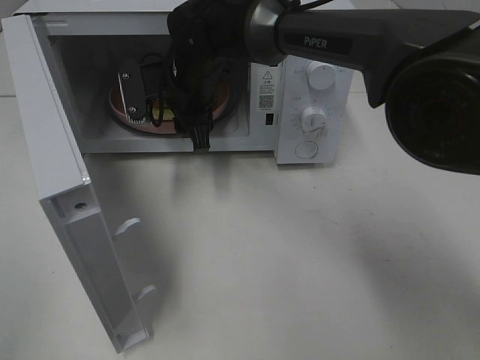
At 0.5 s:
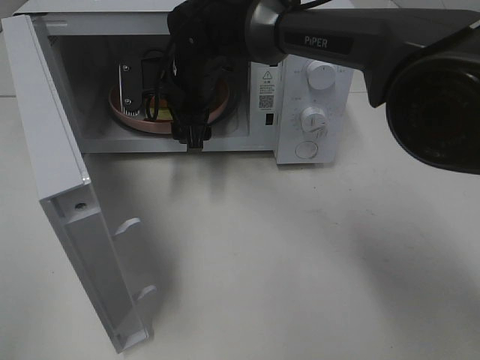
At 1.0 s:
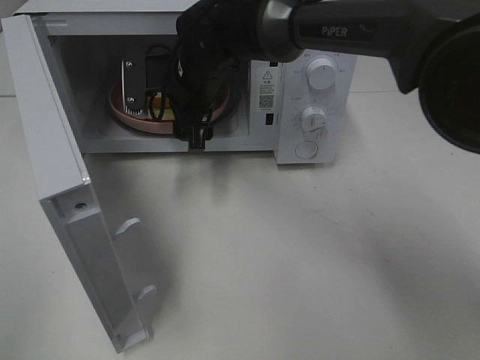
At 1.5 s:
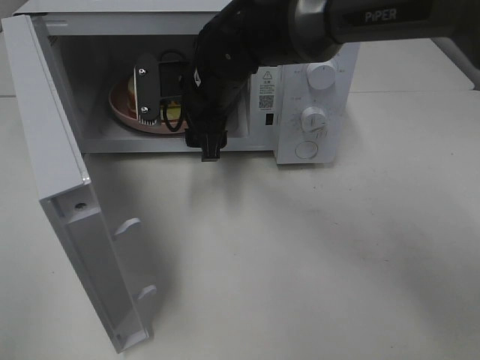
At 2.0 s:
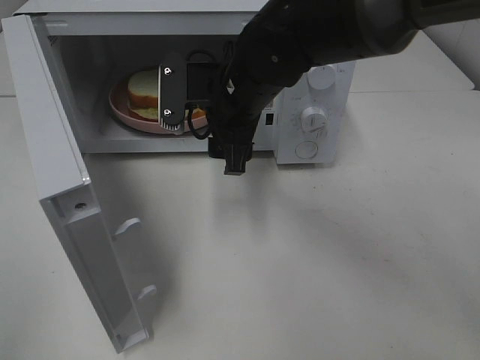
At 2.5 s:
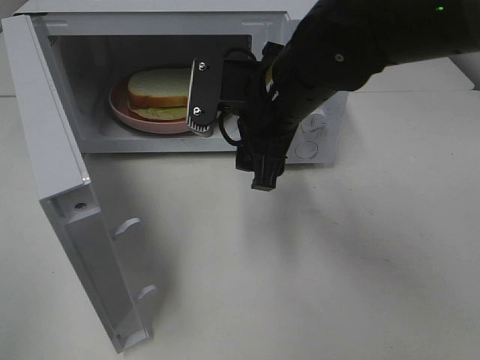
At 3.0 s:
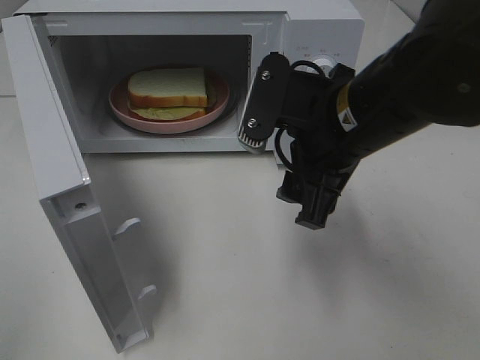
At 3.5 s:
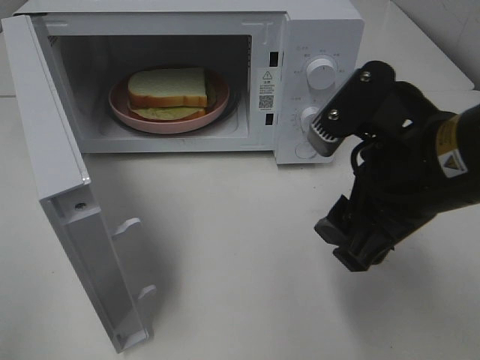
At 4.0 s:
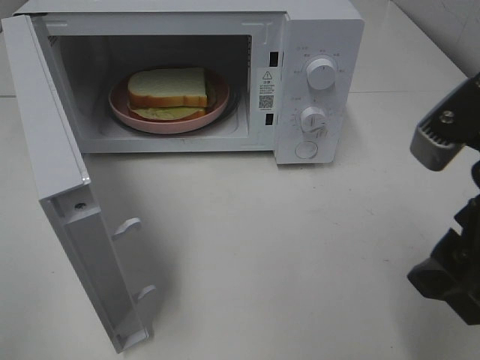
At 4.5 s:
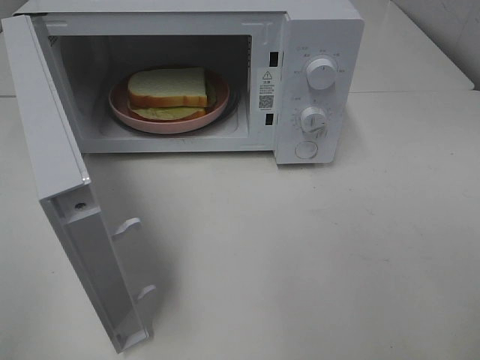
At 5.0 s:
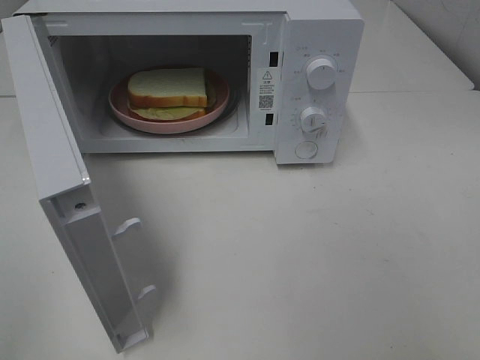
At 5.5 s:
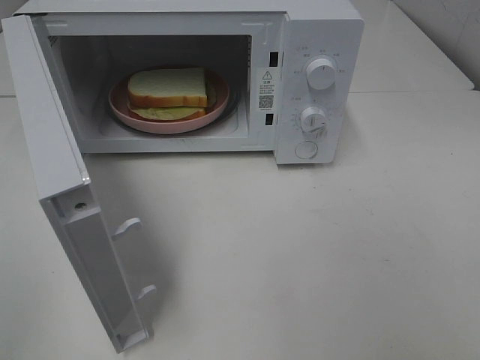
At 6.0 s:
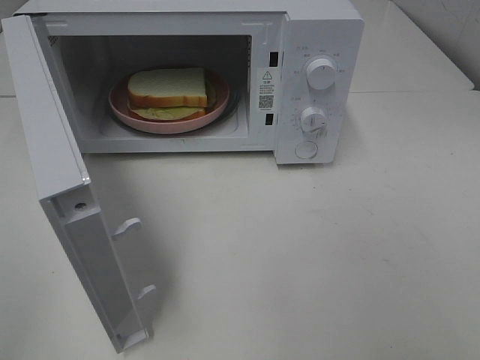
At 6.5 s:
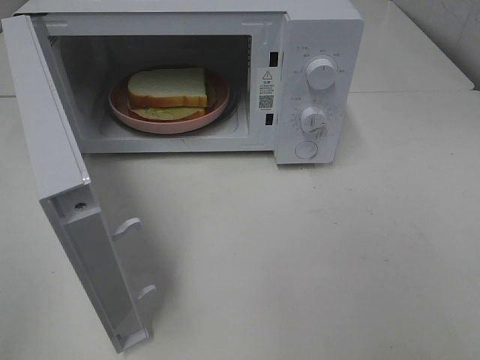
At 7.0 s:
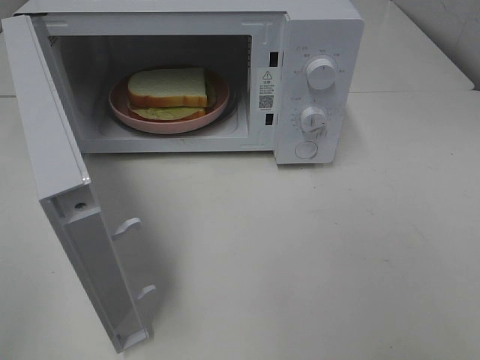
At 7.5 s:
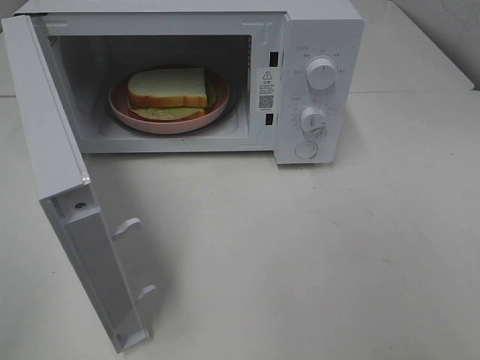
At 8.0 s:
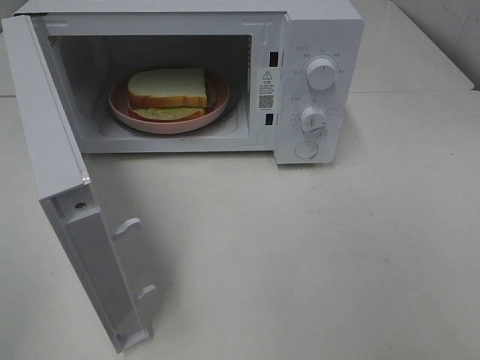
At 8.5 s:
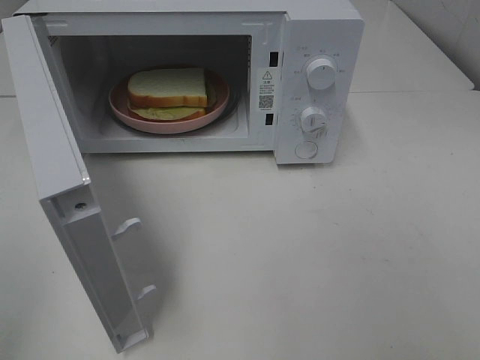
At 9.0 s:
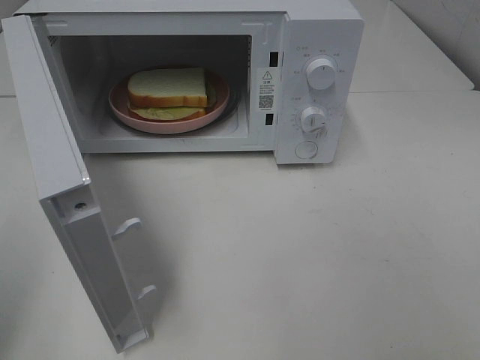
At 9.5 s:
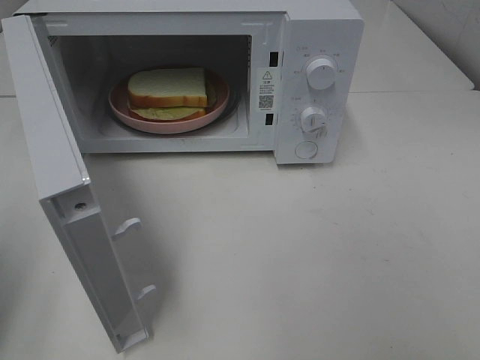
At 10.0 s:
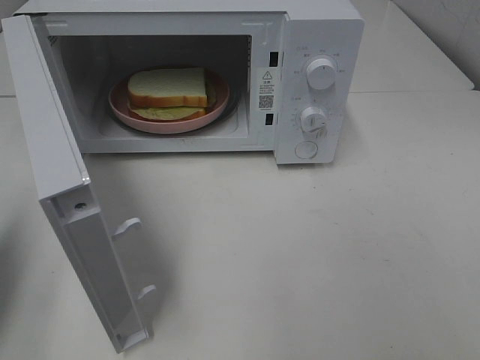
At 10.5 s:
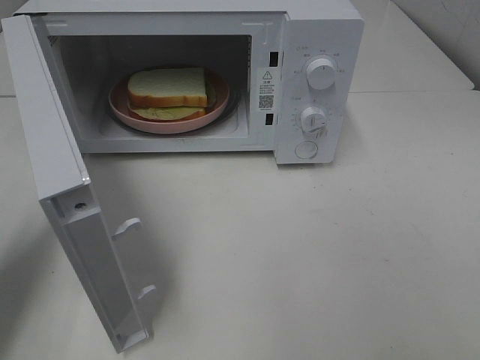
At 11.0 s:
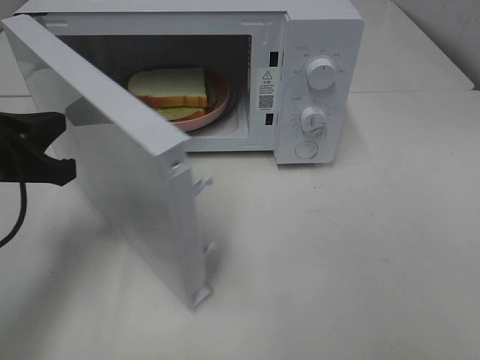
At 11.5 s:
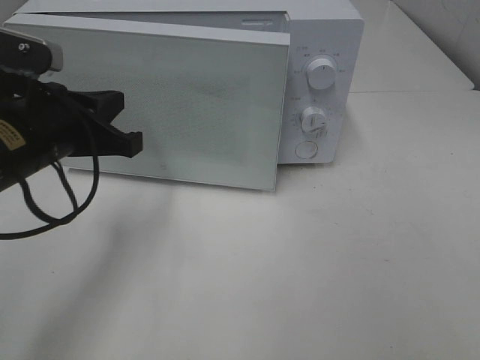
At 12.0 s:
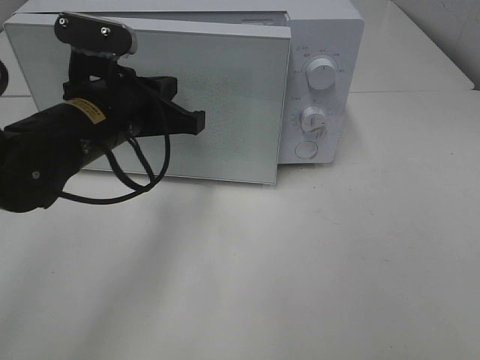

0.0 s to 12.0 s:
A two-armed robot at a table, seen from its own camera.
Task of the whole recording: Heat Sandwich.
0.0 to 2.0 s: The right gripper goes approximately 10 cm backward and to the right.
2.0 to 4.0 s: The right gripper is displaced backward and to the right by approximately 30 cm.
4.0 to 6.0 s: The right gripper travels backward and to the right by approximately 15 cm.
6.0 to 8.0 s: Both grippers stay put.
8.0 to 10.0 s: The left gripper goes approximately 20 cm forward, and closes.
10.0 to 12.0 s: The left gripper moves to the right and forward, roughly 25 cm.

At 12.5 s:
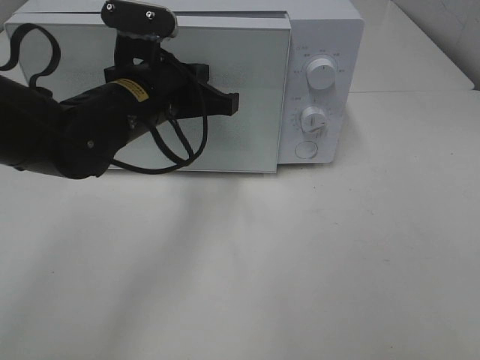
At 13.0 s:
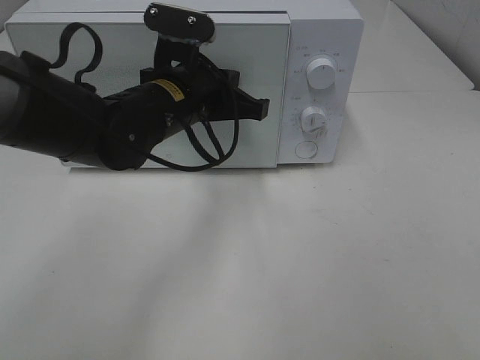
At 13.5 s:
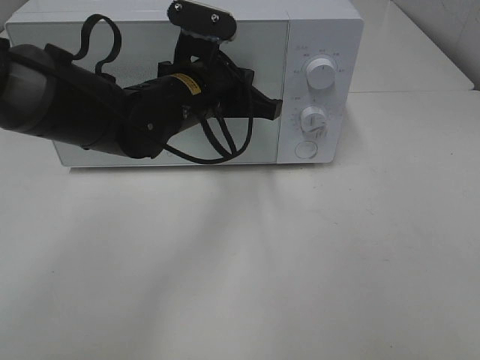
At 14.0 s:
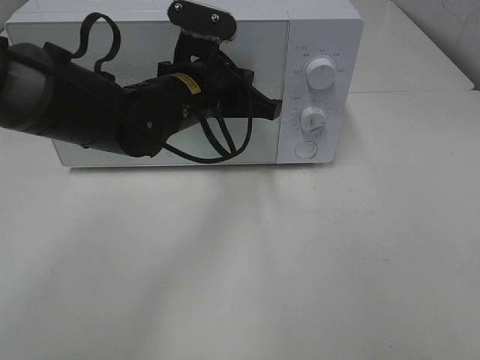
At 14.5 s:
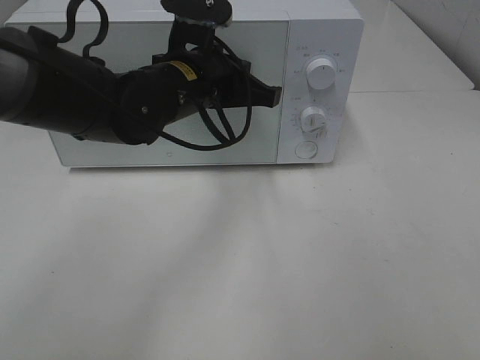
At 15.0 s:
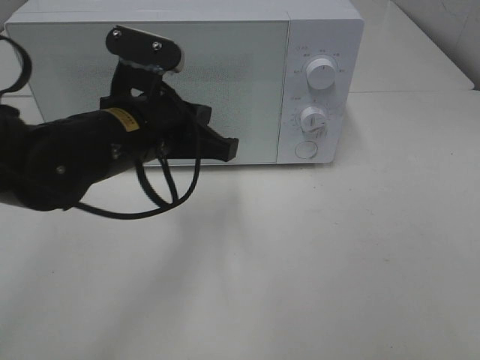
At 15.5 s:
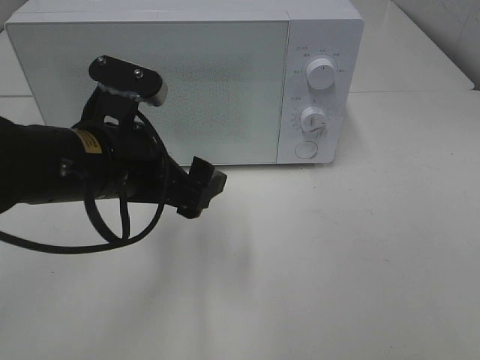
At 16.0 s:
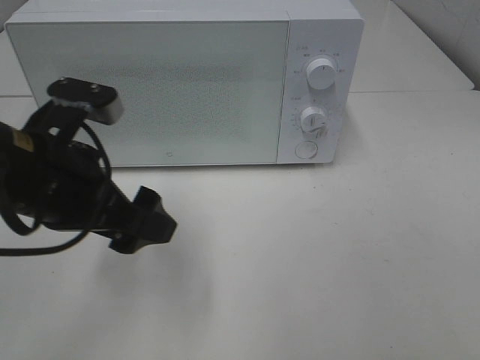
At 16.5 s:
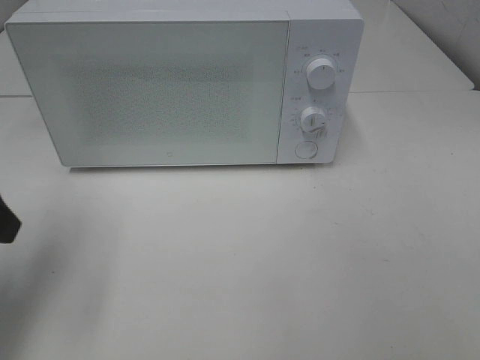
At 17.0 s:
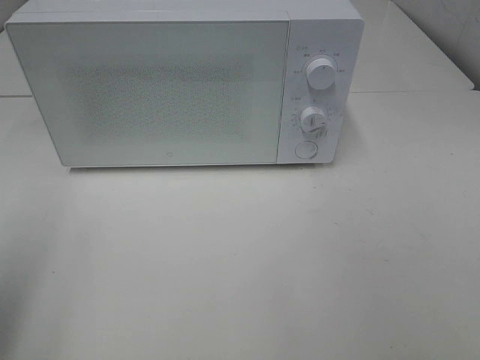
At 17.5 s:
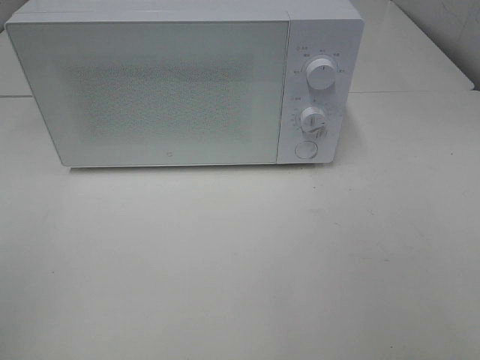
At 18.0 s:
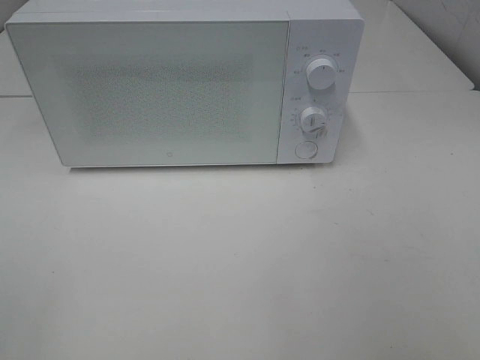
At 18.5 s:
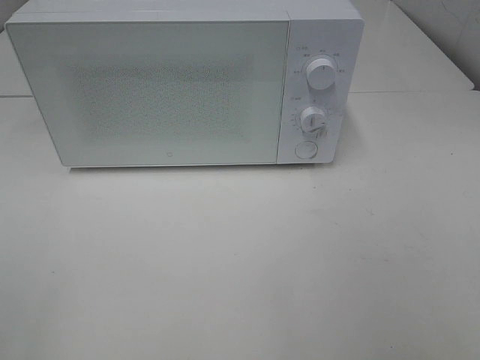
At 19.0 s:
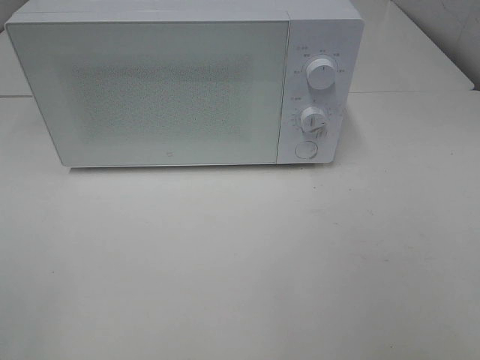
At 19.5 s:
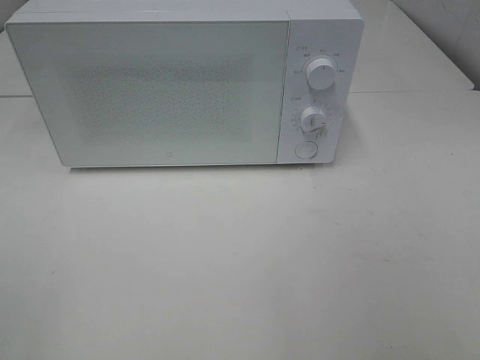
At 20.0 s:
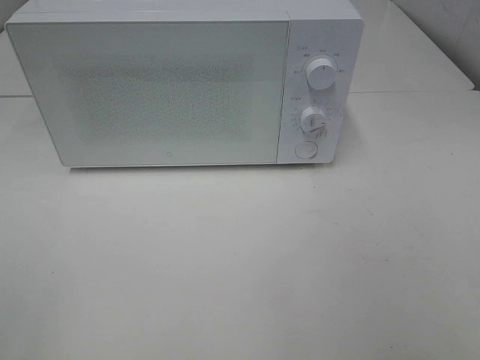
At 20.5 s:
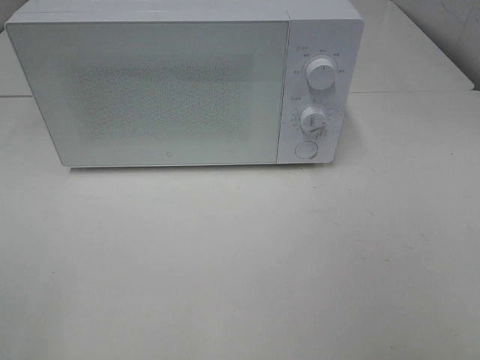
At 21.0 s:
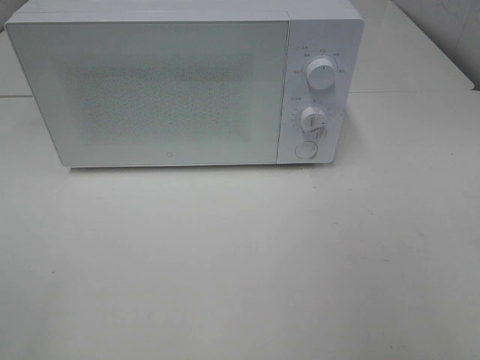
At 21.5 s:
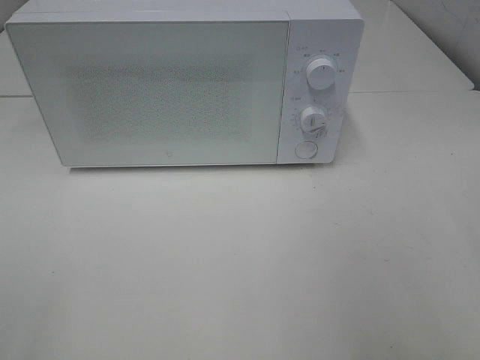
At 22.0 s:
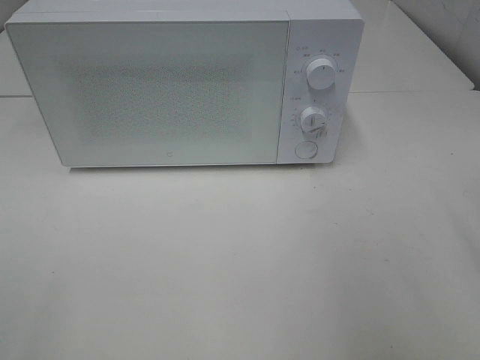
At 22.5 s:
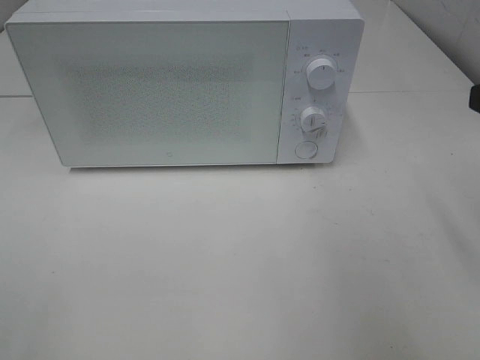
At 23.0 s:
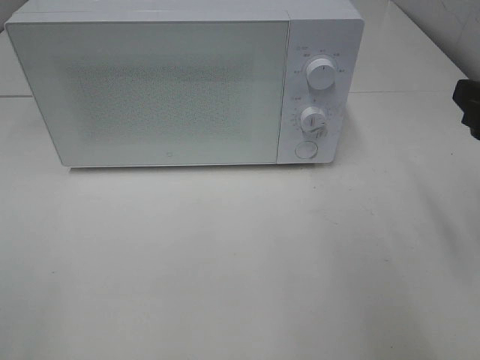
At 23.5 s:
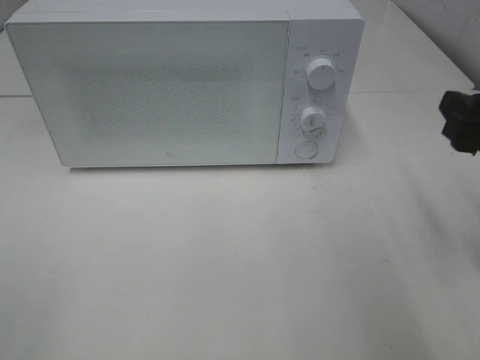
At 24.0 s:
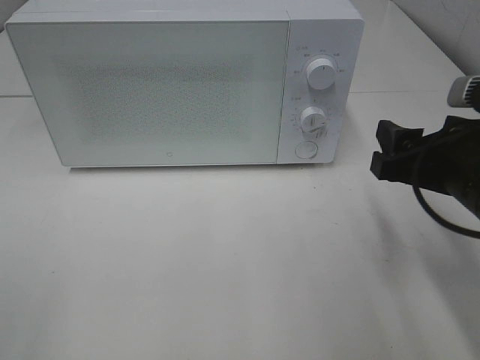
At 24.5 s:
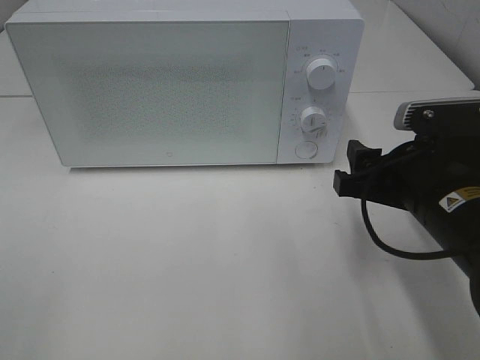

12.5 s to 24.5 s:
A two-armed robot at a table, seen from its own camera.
Task of the whole recording: Heat Sandwich.
Step, 12.5 to 14.5 s: Left hand: close the microwave door.
12.5 to 14.5 s: The grippers move only a little.
14.5 to 16.5 s: The left gripper is displaced to the left and backward by about 25 cm, and opens its fingers.
16.5 to 18.5 s: The left gripper goes roughly 20 cm backward.
22.5 to 24.5 s: The right gripper heads downward and to the left, covering approximately 15 cm.

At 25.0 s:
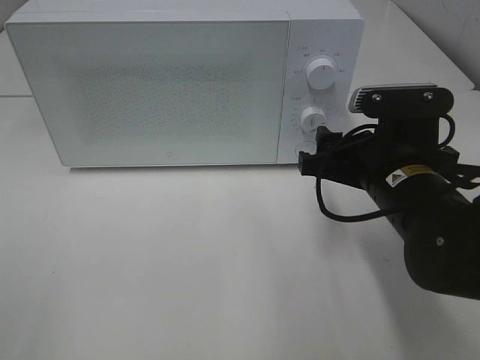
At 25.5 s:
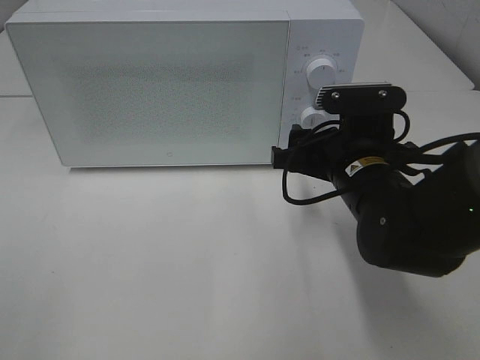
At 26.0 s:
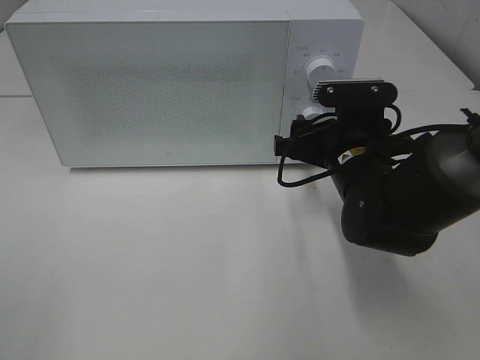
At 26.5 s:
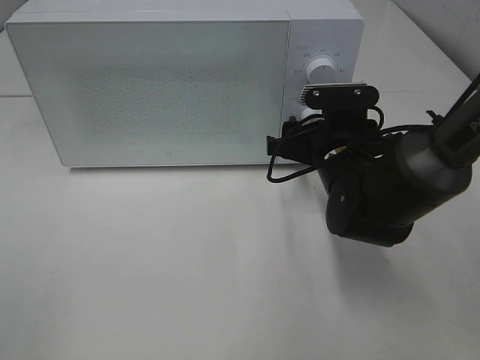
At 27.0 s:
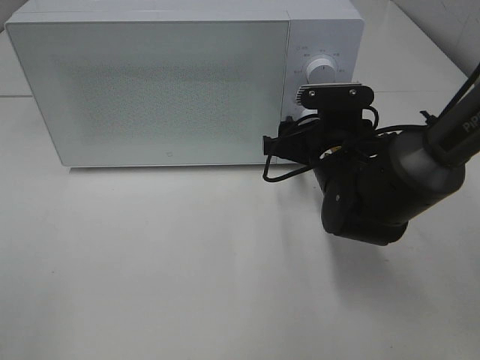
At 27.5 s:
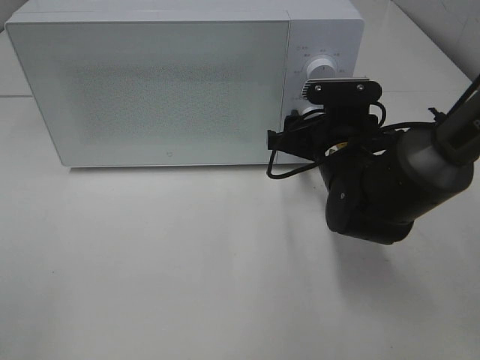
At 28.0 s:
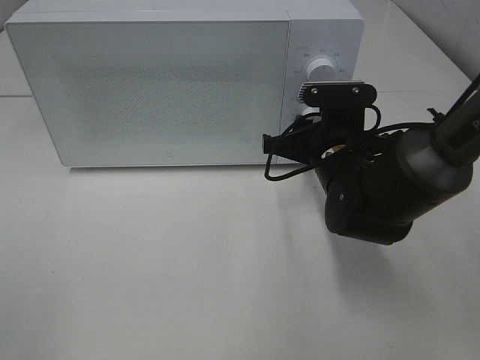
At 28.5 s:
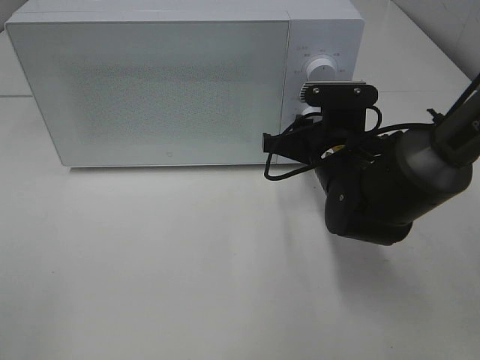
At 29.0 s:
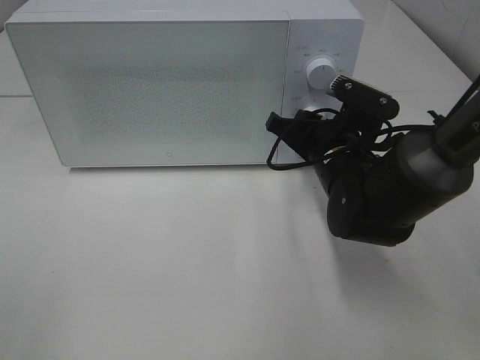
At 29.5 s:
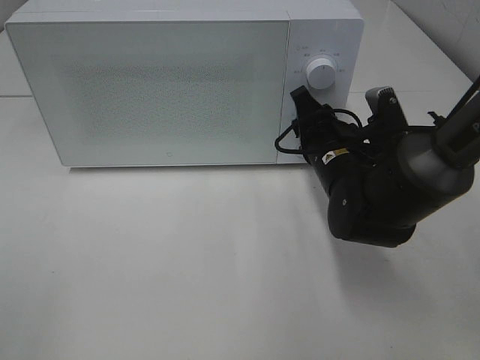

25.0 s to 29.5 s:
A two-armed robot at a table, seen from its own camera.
Task of the whole recording: Heat Sandwich.
25.0 to 27.0 s: The right gripper goes about 10 cm forward.
27.0 to 29.5 s: The right gripper closes up.
